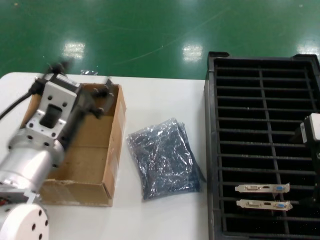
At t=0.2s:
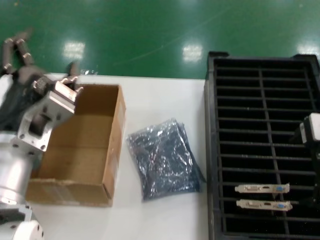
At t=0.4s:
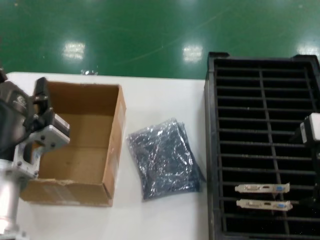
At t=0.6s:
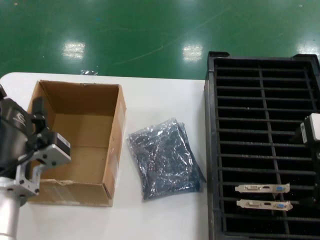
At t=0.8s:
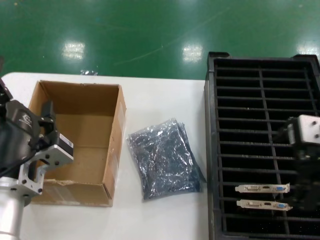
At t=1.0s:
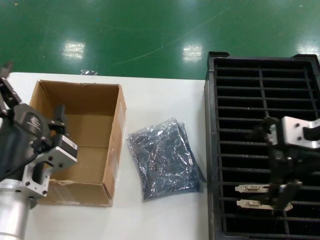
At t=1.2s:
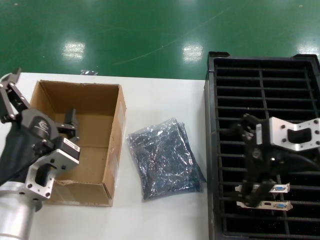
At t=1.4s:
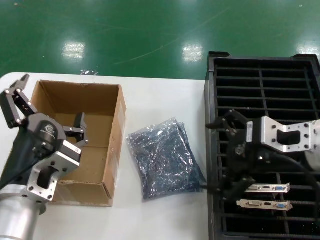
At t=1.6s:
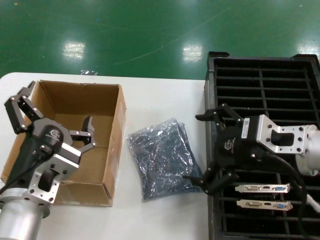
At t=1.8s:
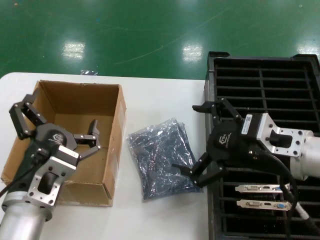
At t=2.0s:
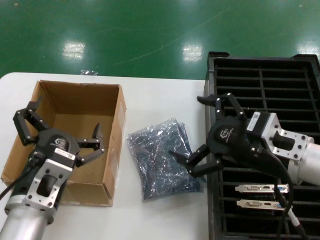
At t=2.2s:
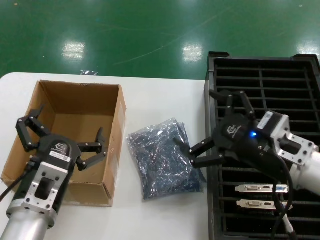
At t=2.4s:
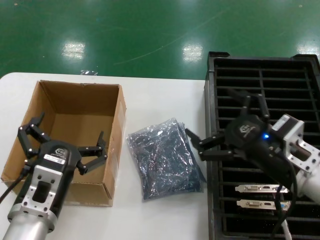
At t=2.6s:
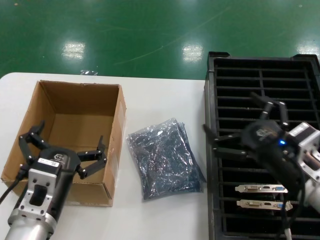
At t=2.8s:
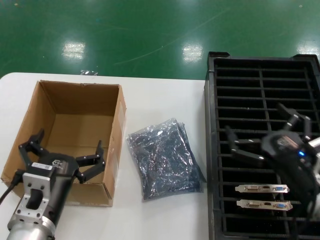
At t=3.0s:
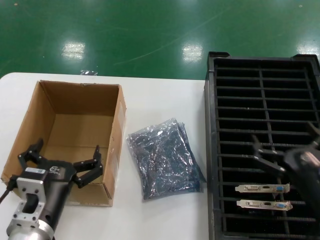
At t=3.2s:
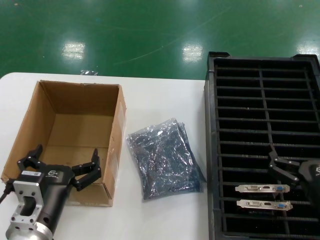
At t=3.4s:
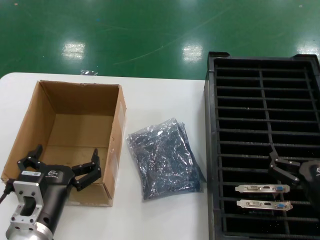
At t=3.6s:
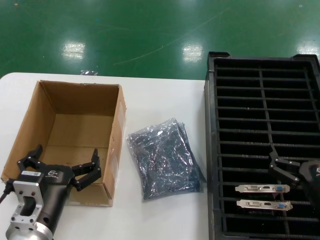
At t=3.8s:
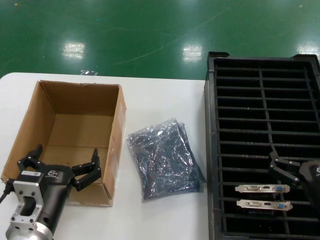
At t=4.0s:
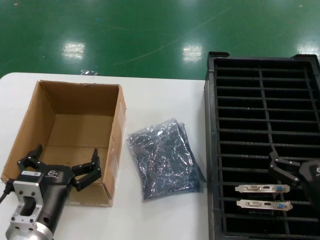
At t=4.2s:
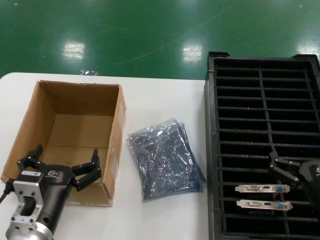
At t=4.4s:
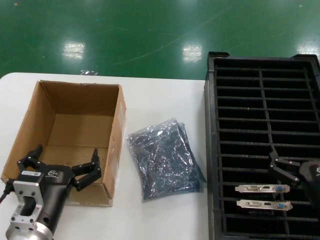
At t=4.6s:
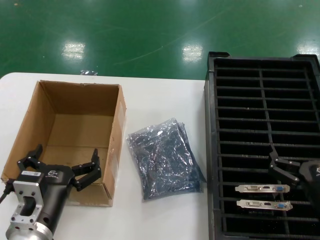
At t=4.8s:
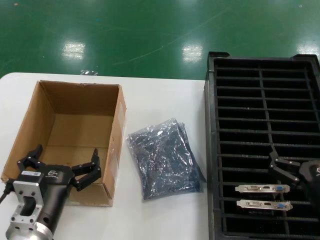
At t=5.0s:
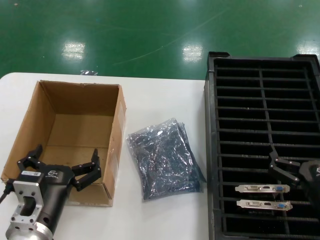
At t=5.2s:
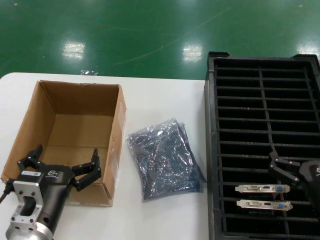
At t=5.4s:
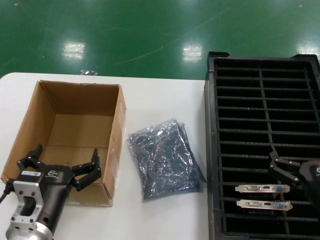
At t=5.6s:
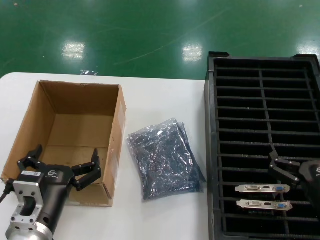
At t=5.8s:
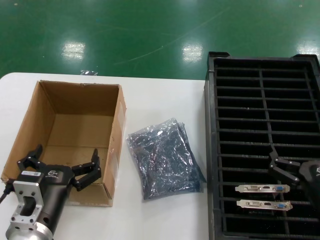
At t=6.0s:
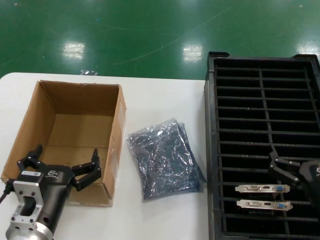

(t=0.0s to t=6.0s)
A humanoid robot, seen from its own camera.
Task of the whole recording: take out graphics card from box remove packaging put into black container.
t=0.0s - t=1.6s: The right hand is displaced downward and to the left by approximately 10 cm. Meanwhile the left hand travels downward by roughly 10 cm.
t=1.6s - t=3.0s: The right hand moves downward, some 15 cm. The left hand is displaced downward by some 5 cm.
t=3.0s - t=4.4s: The hands make only small movements.
t=4.4s - t=6.0s: The two hands keep their place.
